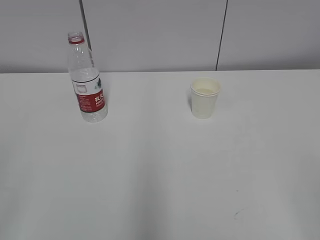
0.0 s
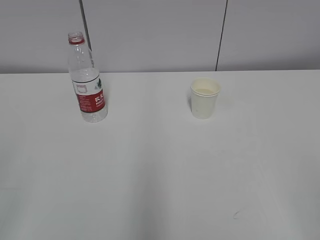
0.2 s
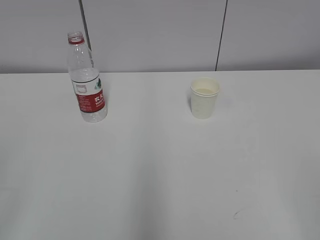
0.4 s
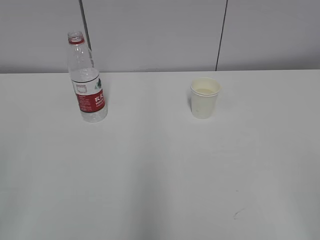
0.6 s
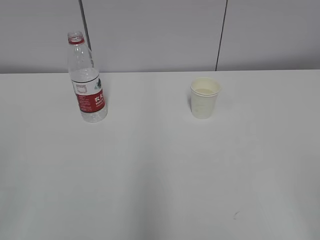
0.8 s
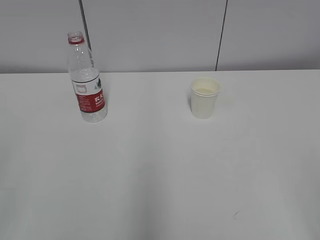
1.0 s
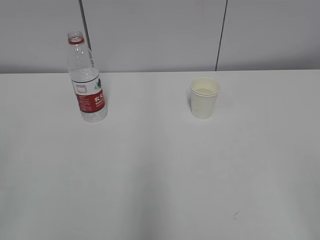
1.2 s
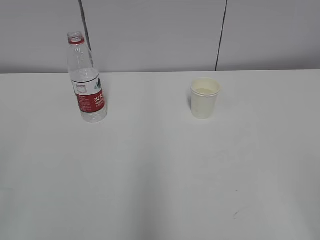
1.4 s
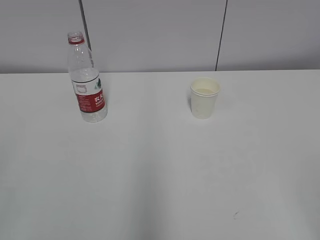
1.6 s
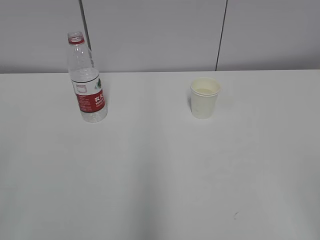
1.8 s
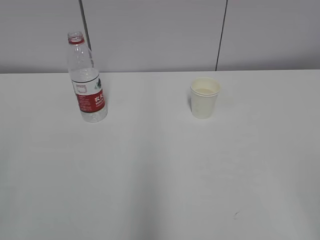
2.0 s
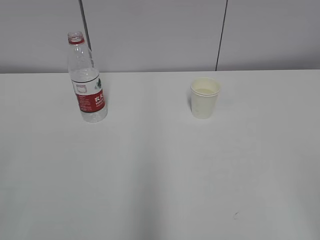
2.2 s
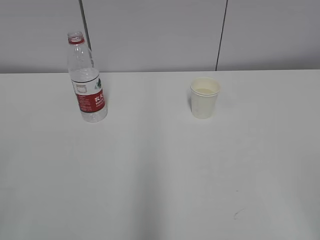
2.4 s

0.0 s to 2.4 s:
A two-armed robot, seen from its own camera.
0.0 to 1.2 s: Neither gripper changes place.
